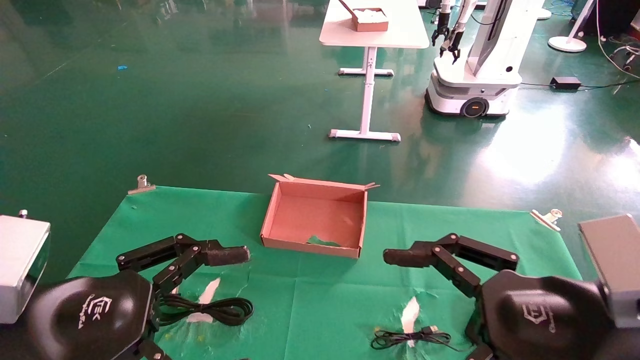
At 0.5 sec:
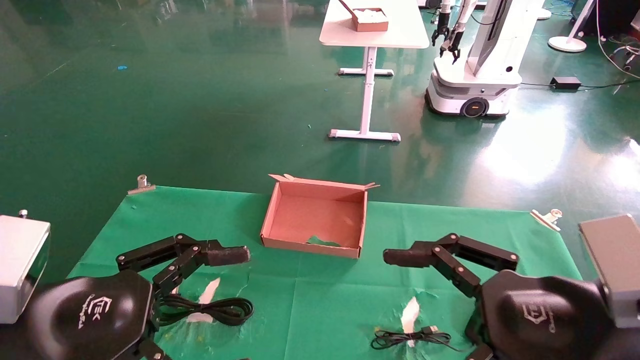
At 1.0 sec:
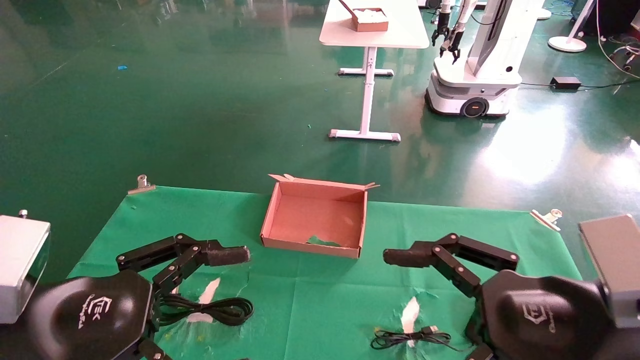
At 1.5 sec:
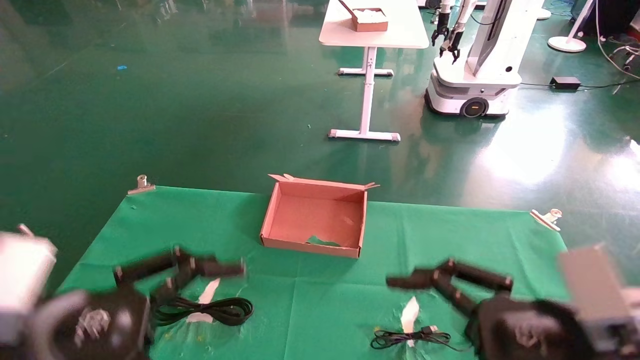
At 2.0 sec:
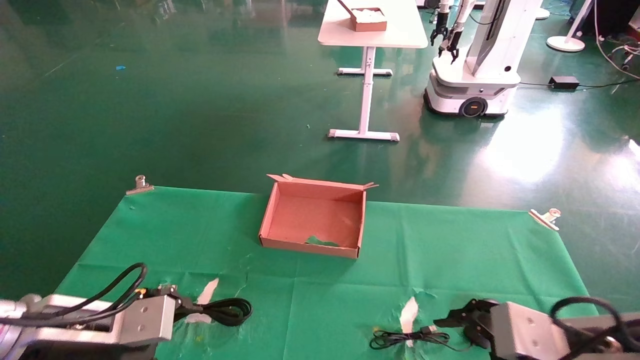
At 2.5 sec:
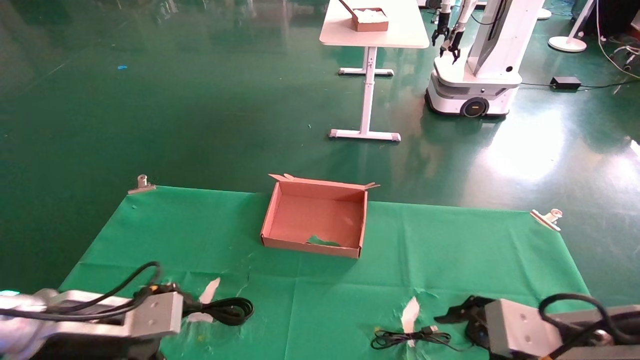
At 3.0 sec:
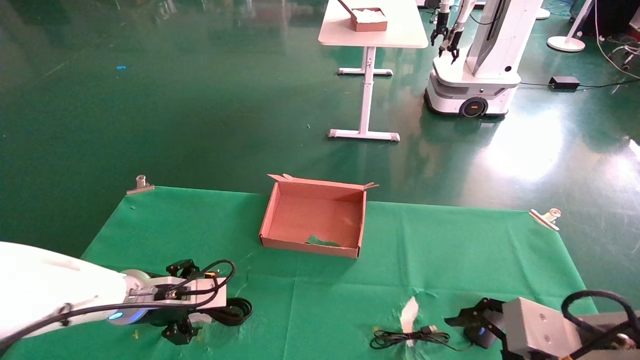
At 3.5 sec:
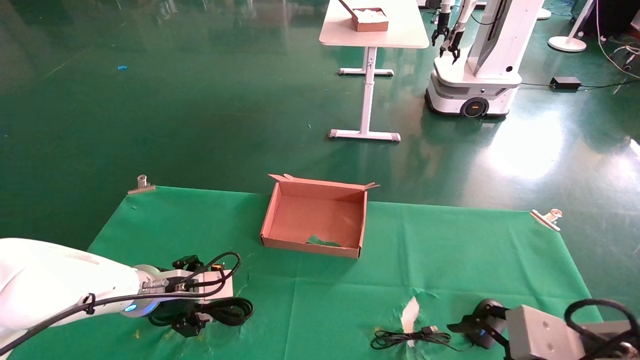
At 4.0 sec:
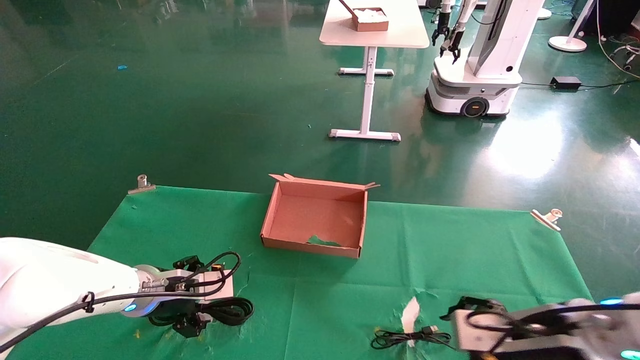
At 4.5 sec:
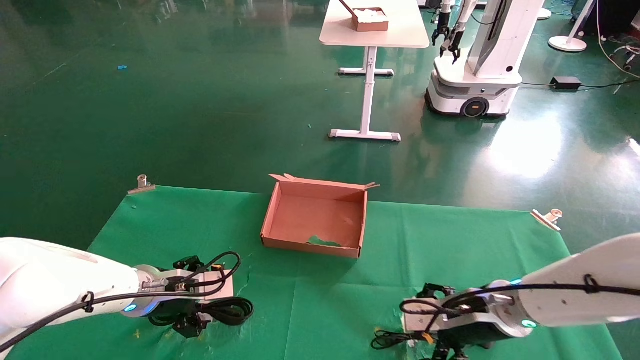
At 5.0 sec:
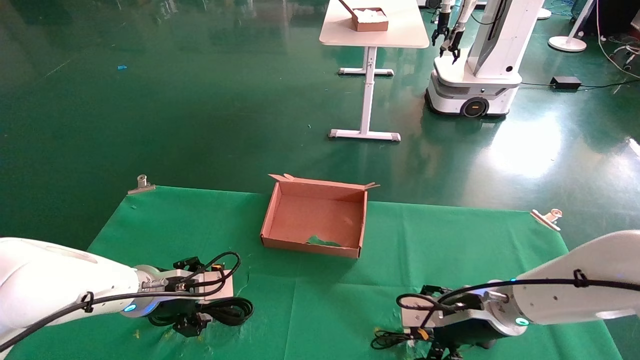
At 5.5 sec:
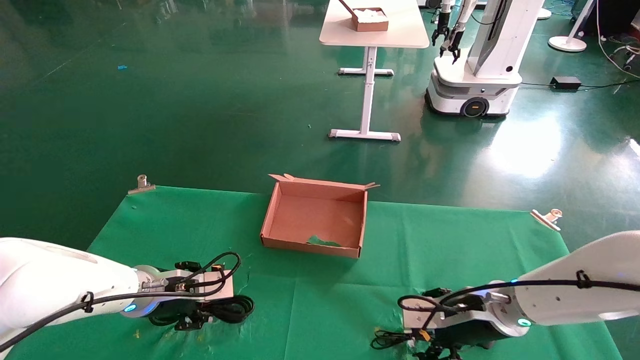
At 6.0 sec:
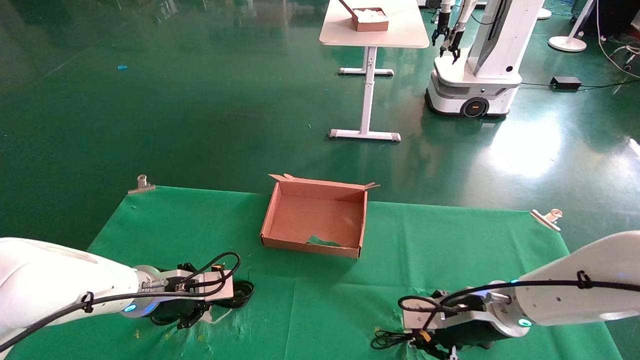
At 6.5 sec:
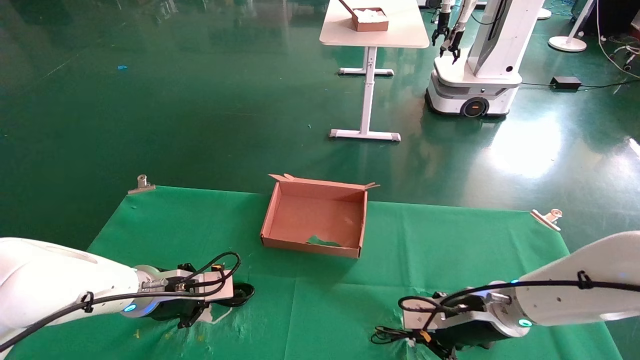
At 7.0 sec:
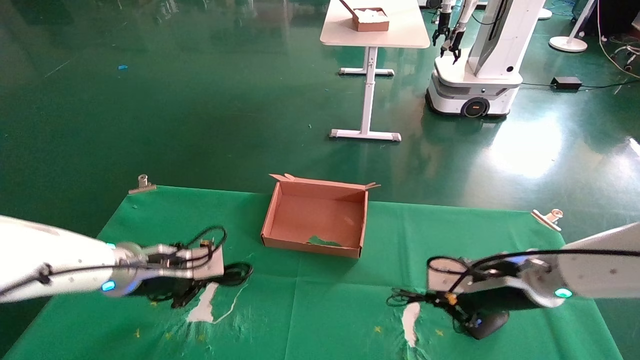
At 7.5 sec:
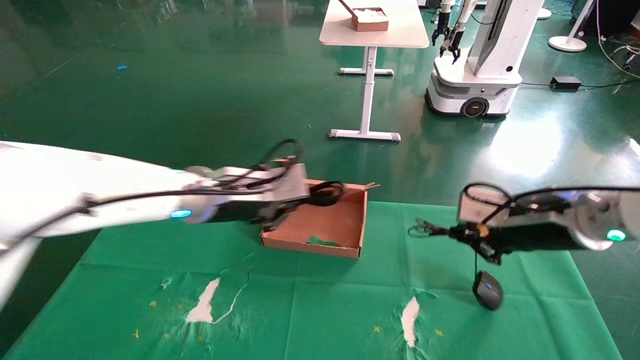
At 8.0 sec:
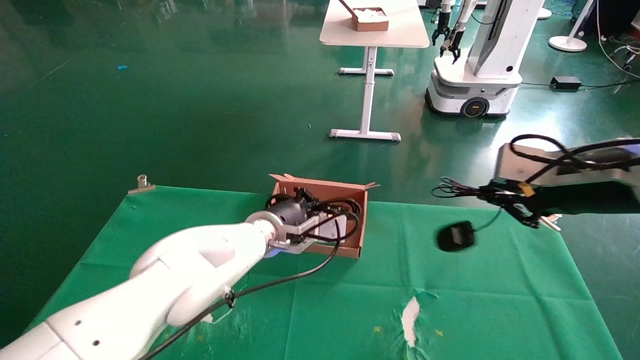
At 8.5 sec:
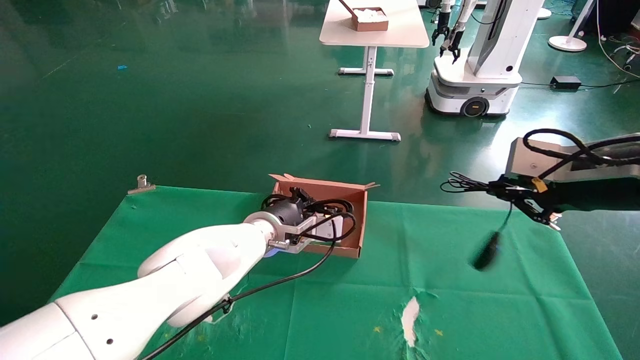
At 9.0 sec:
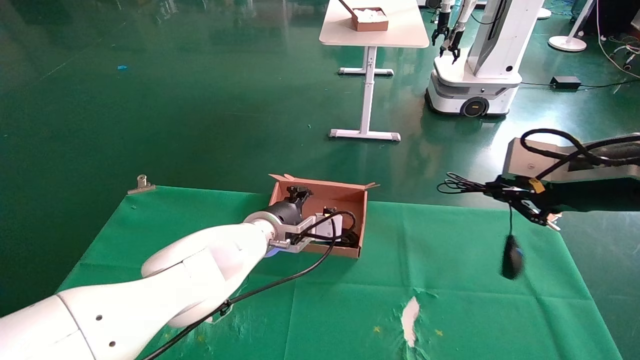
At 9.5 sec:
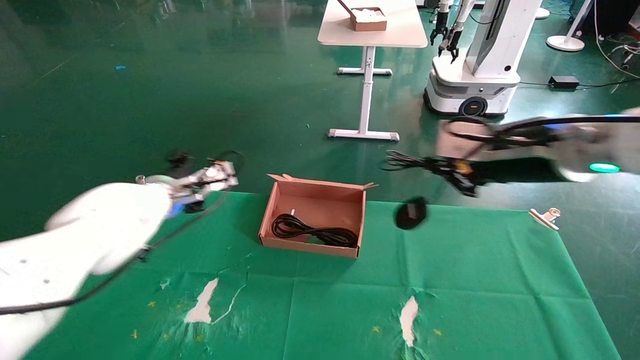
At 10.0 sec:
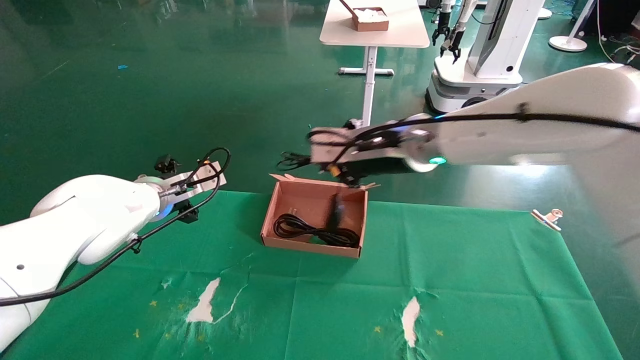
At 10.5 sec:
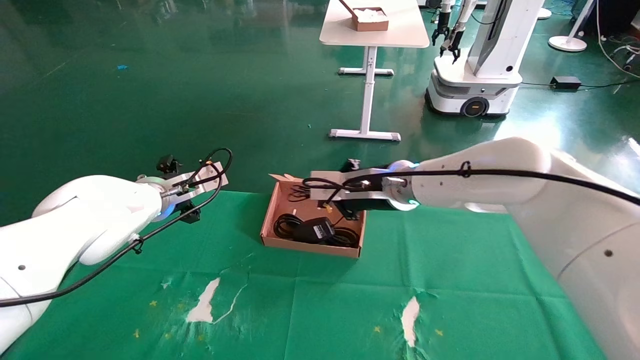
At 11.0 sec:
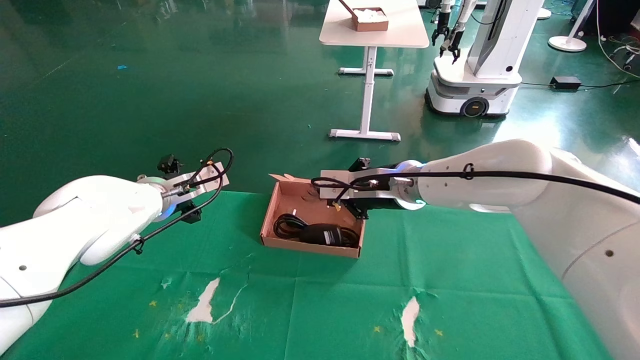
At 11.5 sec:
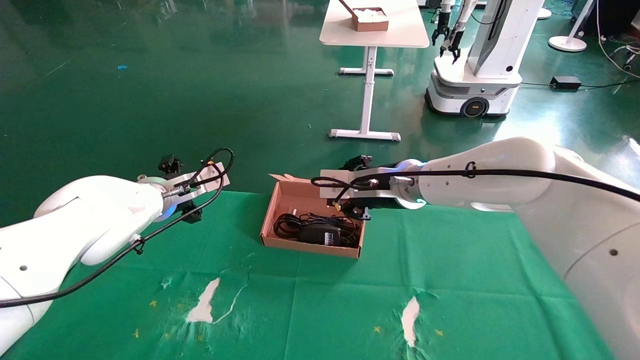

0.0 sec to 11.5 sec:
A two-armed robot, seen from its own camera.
Step, 2.0 sec to 7.0 sec: Grab and lift both the mouse and power cord from the accessory packaging area at the same time.
0.0 sec to 2.0 sec: The left gripper goes roughly 10 cm forward and downward; the right gripper travels downward by approximately 5 cm.
2.0 sec to 4.0 sec: The left gripper heads forward, covering roughly 15 cm; the right gripper goes some 10 cm forward.
4.0 sec to 6.0 sec: The left gripper closes up, while the right gripper travels forward by about 5 cm, and closes its fingers.
6.0 sec to 7.5 sec: Both grippers move upward and to the right, approximately 15 cm.
7.5 sec to 9.5 sec: The right gripper is displaced upward by about 10 cm; the left gripper moves to the left and forward, roughly 15 cm, and opens up.
9.5 sec to 11.5 sec: The right gripper travels to the left, forward and downward by approximately 20 cm.

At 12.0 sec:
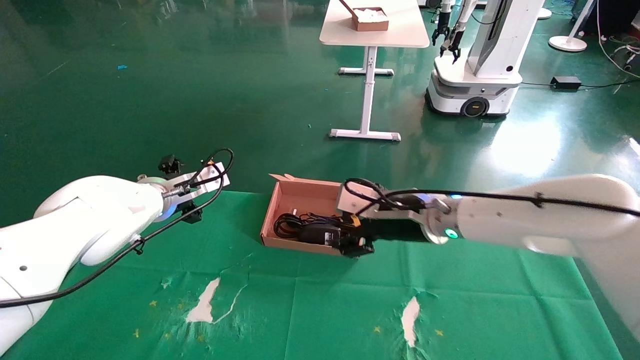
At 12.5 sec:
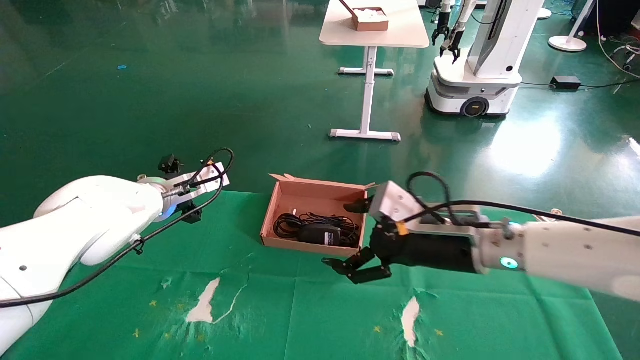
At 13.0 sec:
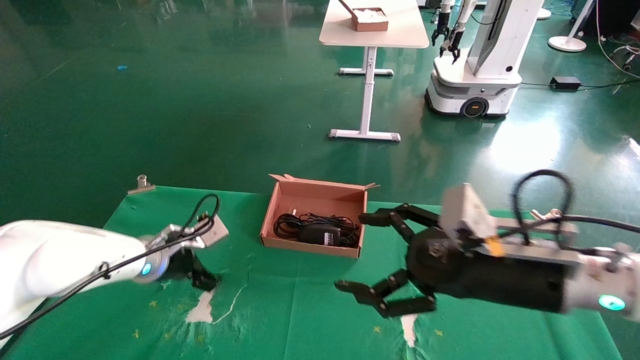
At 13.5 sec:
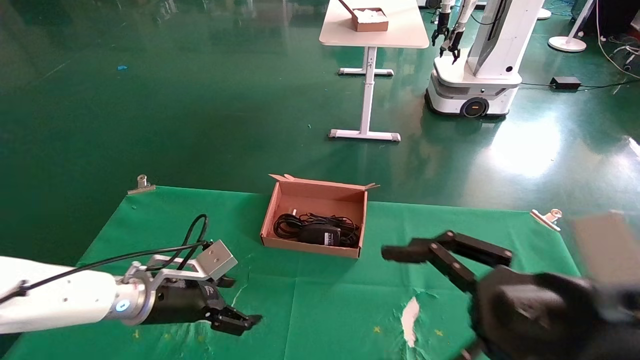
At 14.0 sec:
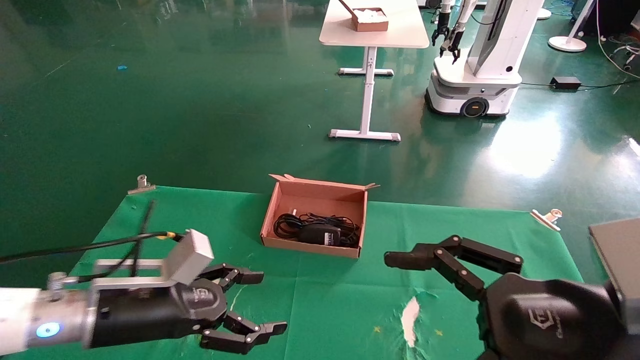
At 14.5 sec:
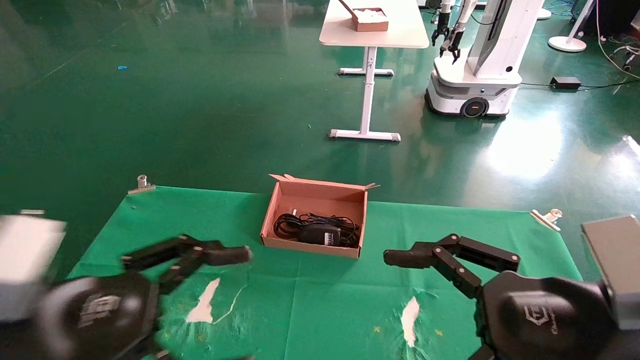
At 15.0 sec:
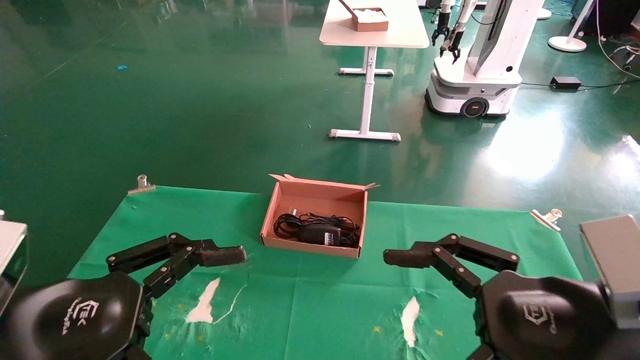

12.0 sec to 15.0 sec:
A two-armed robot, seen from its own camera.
12.0 sec to 13.5 sec: The right gripper is displaced backward and to the right by about 25 cm. Meanwhile the left gripper moves downward and backward, about 15 cm.
13.5 sec to 15.0 sec: The left gripper shifts approximately 25 cm backward and upward.
